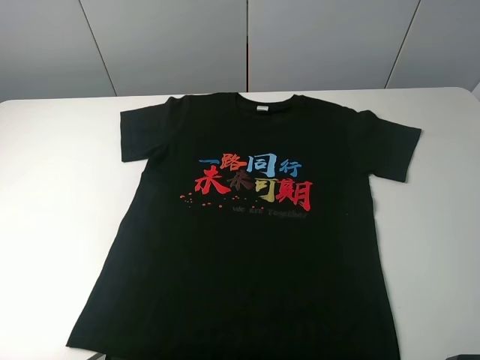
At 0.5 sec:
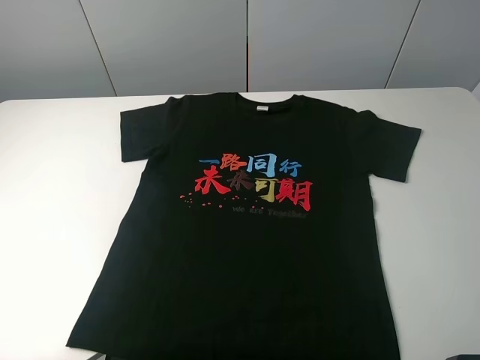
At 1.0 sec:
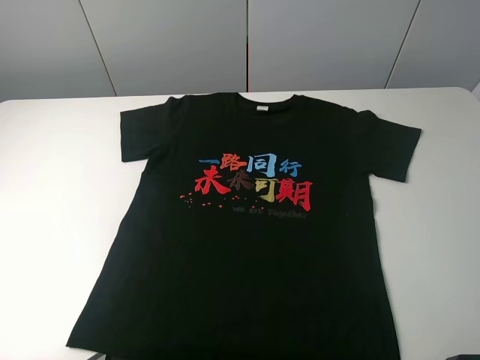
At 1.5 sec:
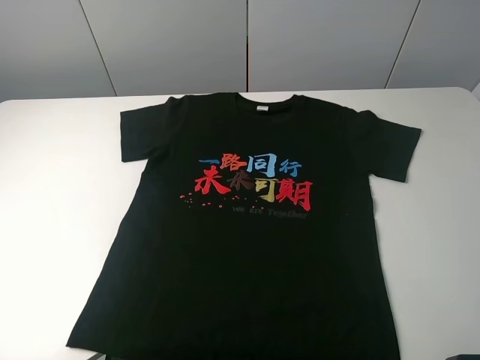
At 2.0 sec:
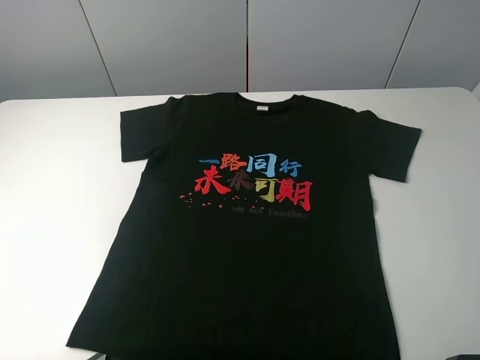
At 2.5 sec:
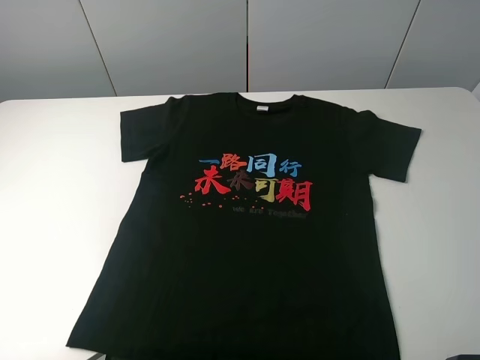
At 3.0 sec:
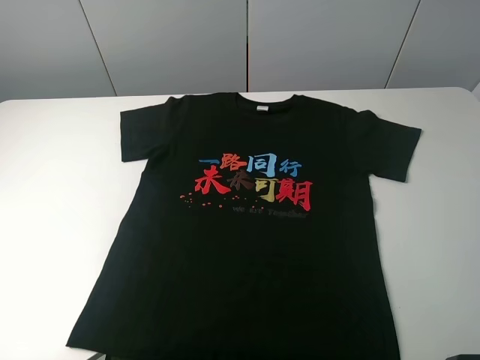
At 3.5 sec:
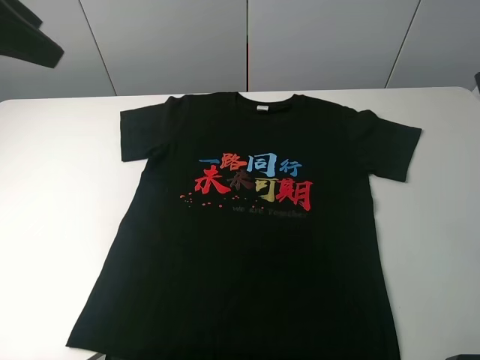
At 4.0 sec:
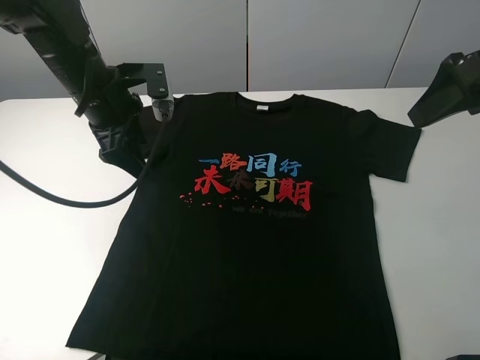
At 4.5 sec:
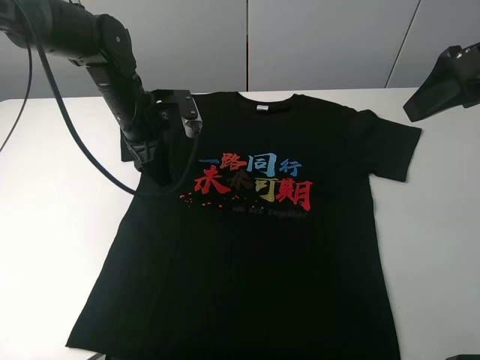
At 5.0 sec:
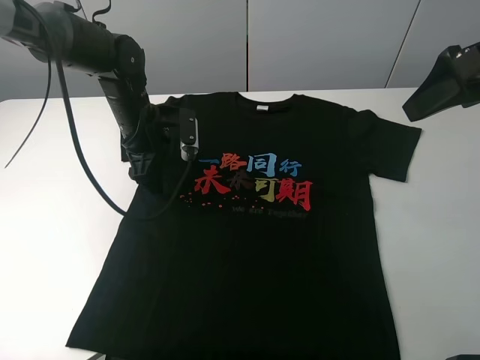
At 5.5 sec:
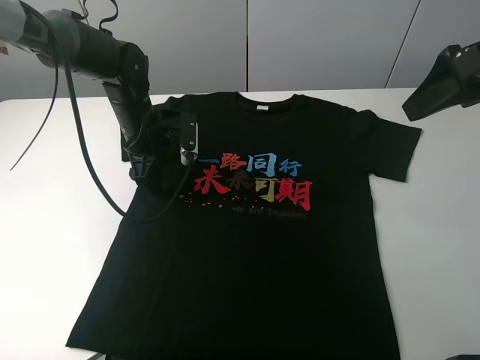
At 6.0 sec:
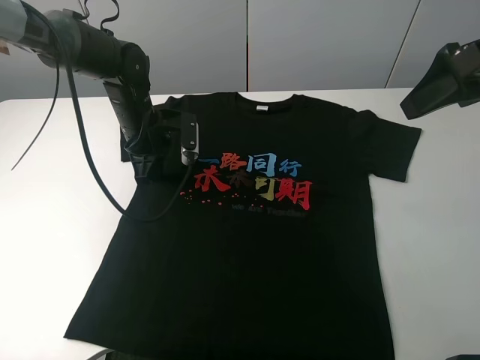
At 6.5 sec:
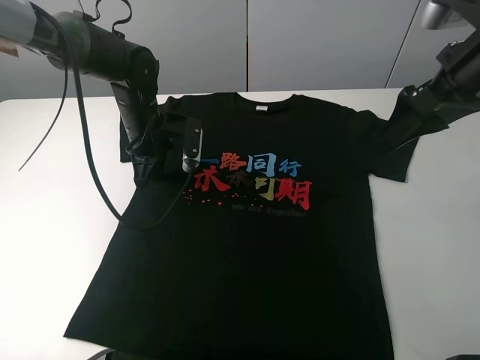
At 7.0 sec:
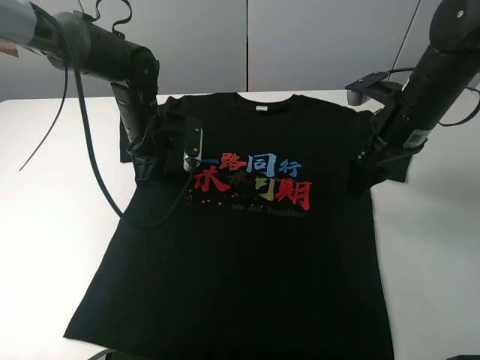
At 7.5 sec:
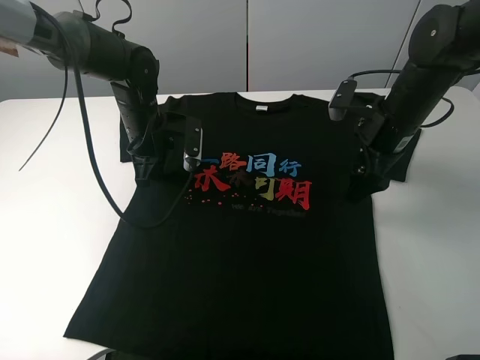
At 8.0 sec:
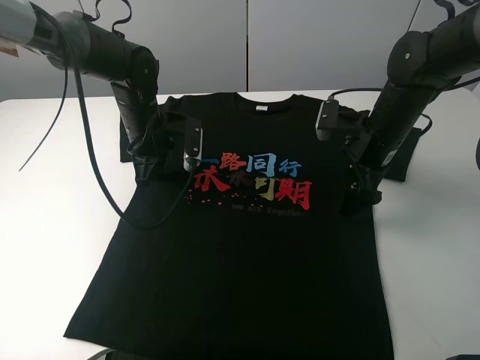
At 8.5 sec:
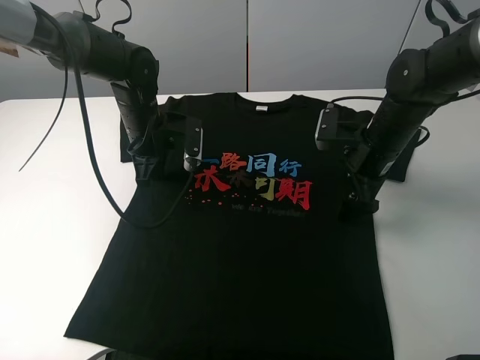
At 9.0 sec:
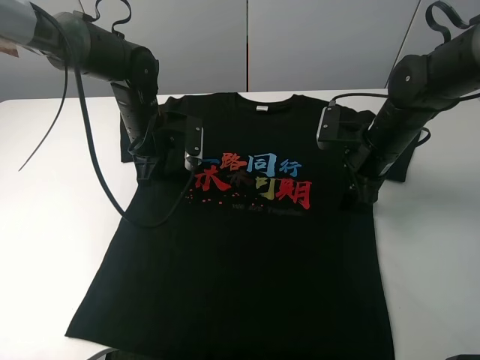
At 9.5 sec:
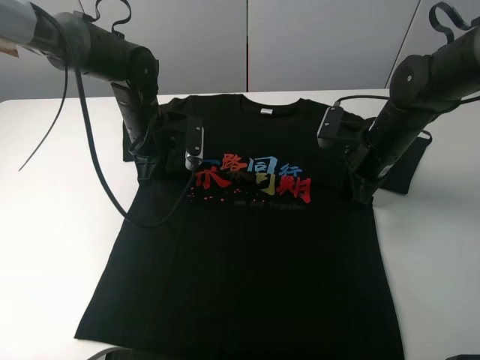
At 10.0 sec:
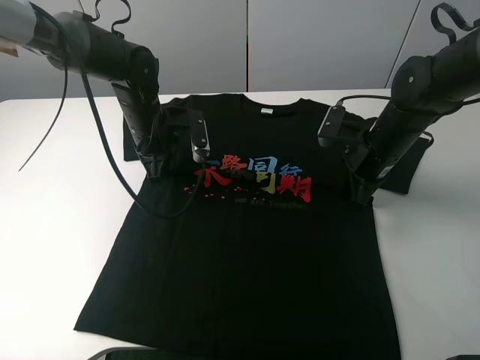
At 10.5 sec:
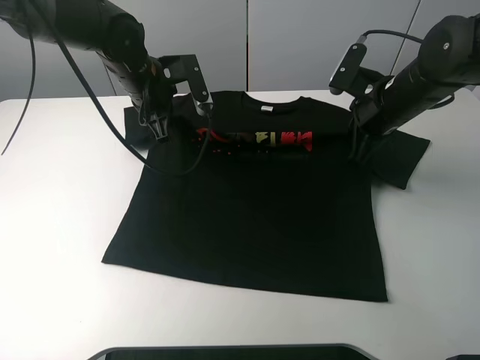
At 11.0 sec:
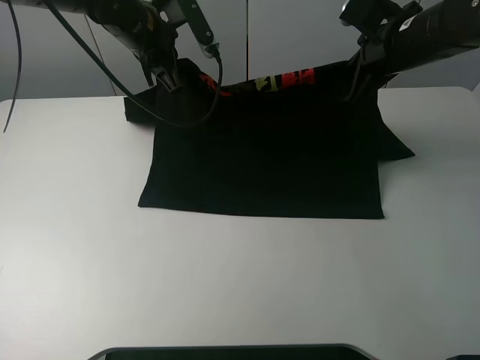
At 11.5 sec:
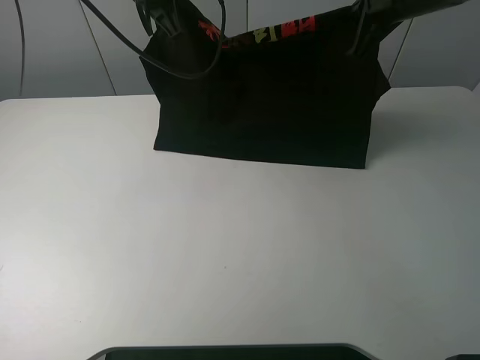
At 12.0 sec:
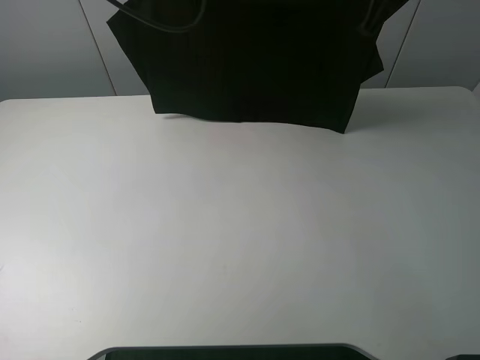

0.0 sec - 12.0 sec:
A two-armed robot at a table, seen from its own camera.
Task of the whole recording: fold the clothes on the table.
Step, 0.0 sec - 9.0 sec: Lift the black T-shirt with the left gripper.
2.0 sec - 4.0 sec: The left gripper heads forward and to the right, covering some 35 cm. The right gripper goes some 25 cm forward.
4.0 sec - 6.0 sec: The left gripper shifts roughly 10 cm downward, and closes its fingers.
6.0 sec - 8.0 sec: The right gripper moves downward and forward, roughly 20 cm.
8.0 sec - 10.0 sec: The right gripper closes.
10.0 sec - 12.0 sec: The right gripper heads upward and forward, covering about 20 cm. The left gripper heads upward, covering about 25 cm.

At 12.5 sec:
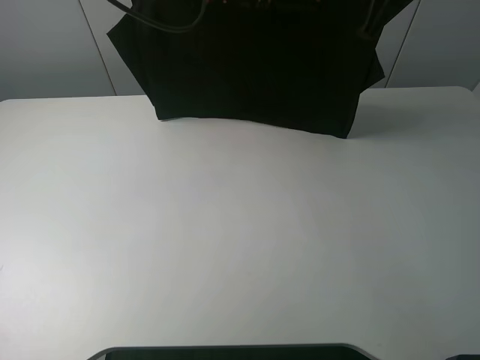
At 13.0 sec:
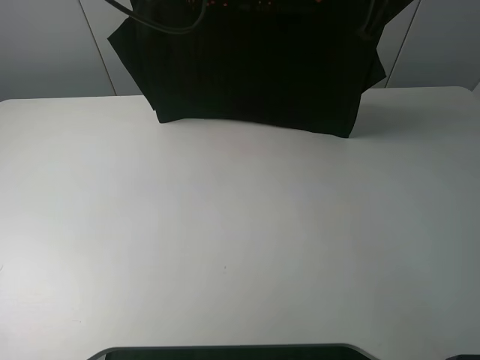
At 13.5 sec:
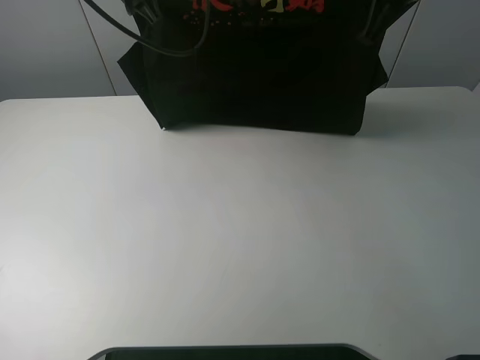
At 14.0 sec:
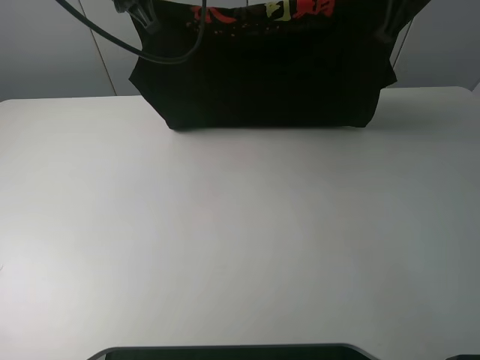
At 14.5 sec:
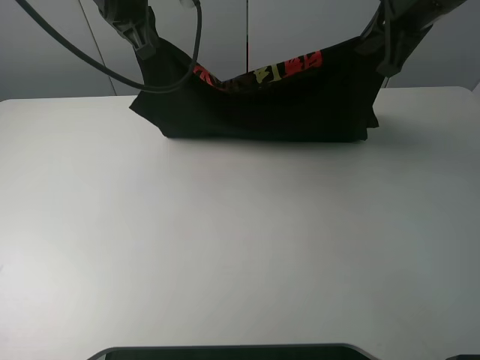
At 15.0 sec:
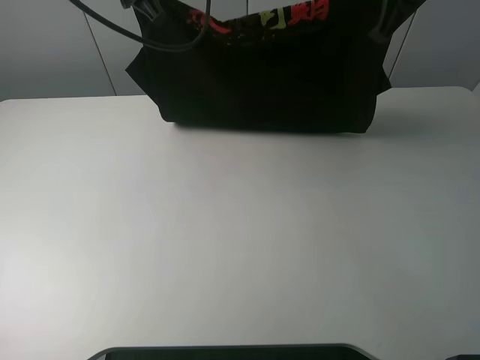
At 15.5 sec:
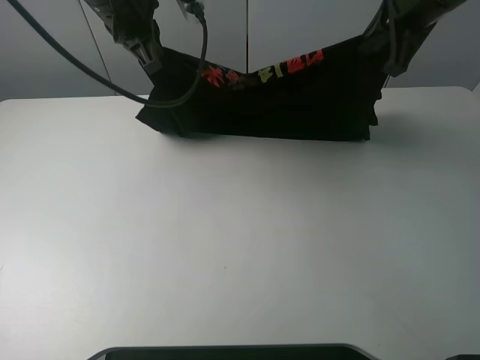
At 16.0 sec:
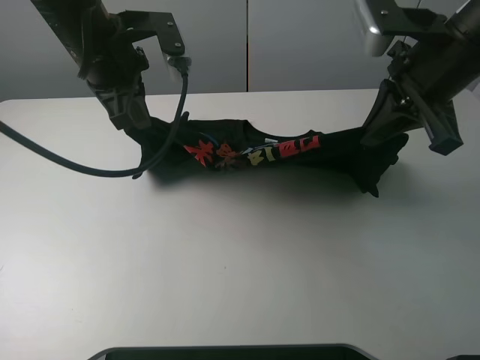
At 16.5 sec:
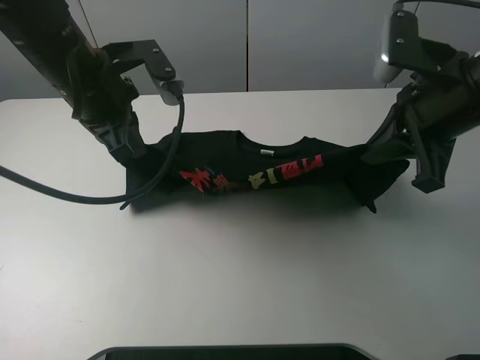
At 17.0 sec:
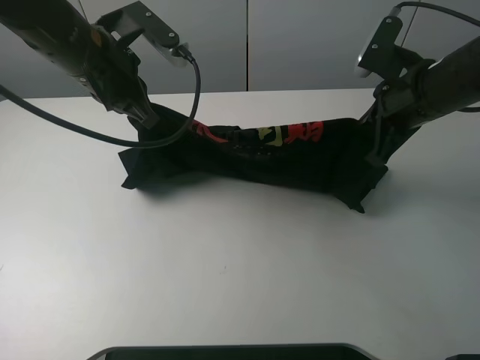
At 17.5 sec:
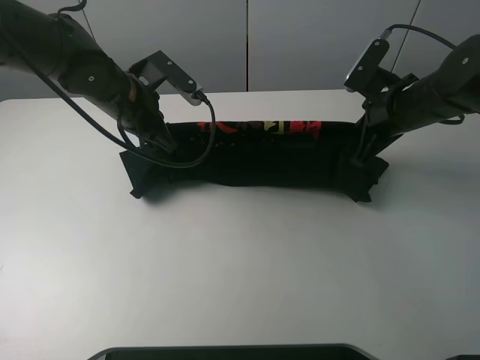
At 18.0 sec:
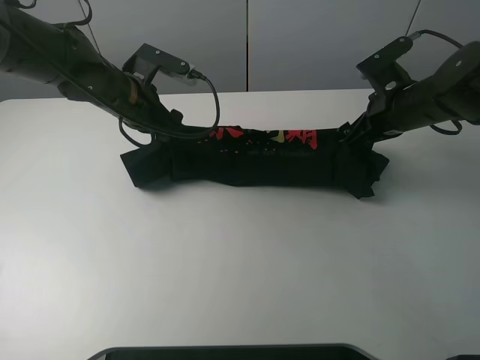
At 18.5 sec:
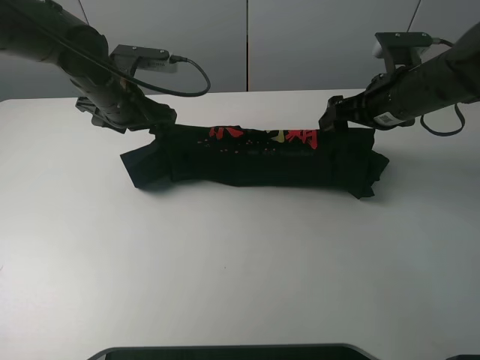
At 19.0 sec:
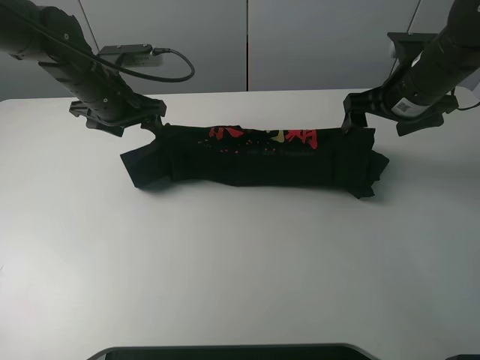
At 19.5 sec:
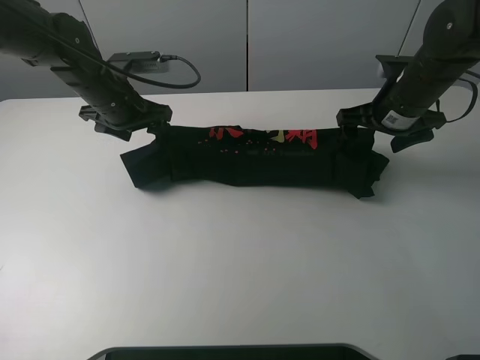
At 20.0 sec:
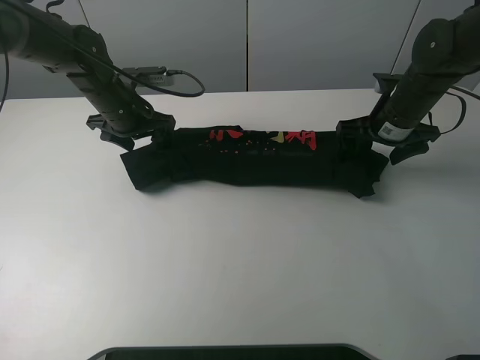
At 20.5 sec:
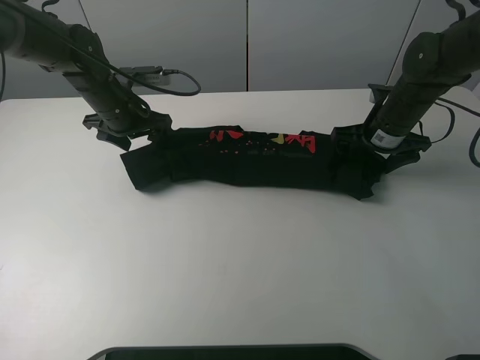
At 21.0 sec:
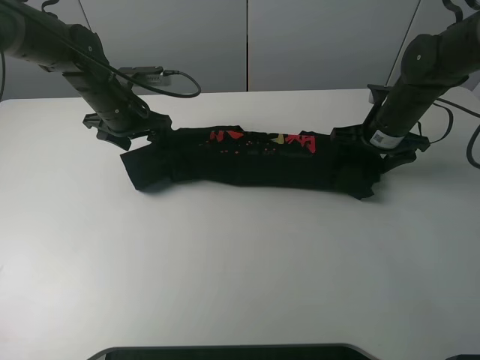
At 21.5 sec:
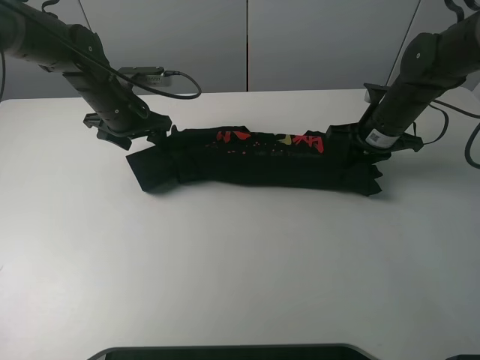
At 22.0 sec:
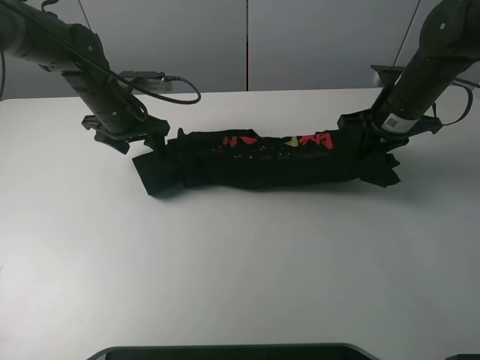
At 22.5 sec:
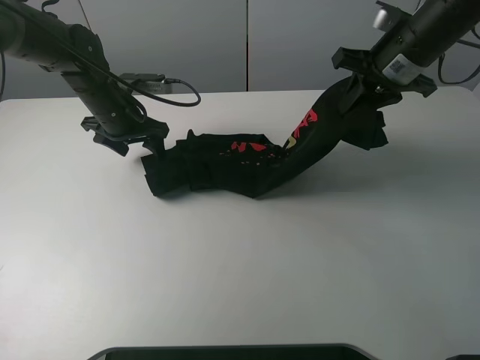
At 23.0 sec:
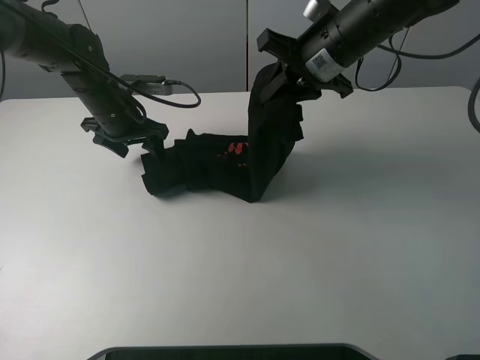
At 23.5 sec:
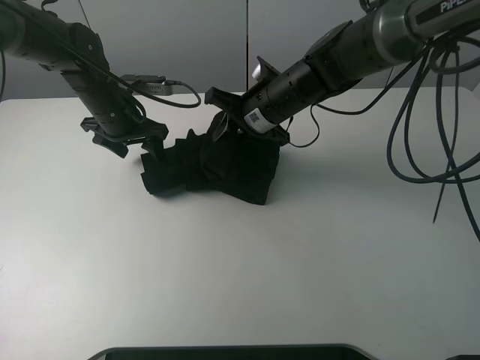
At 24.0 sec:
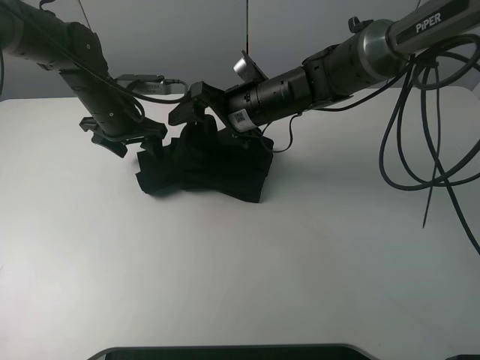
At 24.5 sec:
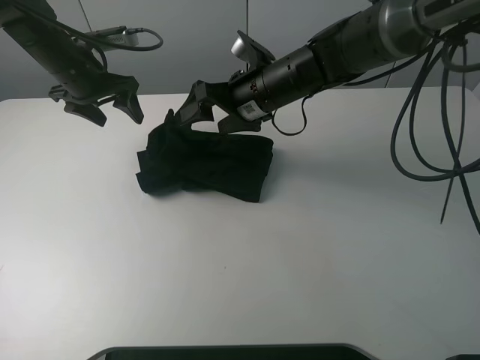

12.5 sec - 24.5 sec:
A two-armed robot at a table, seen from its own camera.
Task of the whole recording: fold the clothes on the table.
Step, 12.5 sec - 18.0 sec: Fold the black T-shirt downward with the left gripper.
Step, 18.5 sec - 21.5 sec: Grasp the black T-shirt with the right gripper.
Step, 22.0 sec - 24.5 sec: Fold the black T-shirt from right to left with right gripper.
12.5 sec - 14.5 sec: The left gripper ends up roughly 5 cm from where it was.
14.5 sec - 16.5 sec: The right gripper moves backward, about 10 cm. The left gripper shifts roughly 10 cm backward and downward.
16.5 sec - 18.5 sec: The two grippers go approximately 10 cm forward and downward. The left gripper opens up, while the right gripper opens up.
18.5 sec - 20.5 sec: The left gripper moves roughly 5 cm; the right gripper shifts roughly 5 cm downward.
20.5 sec - 22.5 sec: The right gripper goes roughly 10 cm upward, and closes up.
22.5 sec - 24.5 sec: The left gripper travels upward by about 5 cm. Meanwhile the right gripper travels to the left and downward by roughly 15 cm, and opens up.

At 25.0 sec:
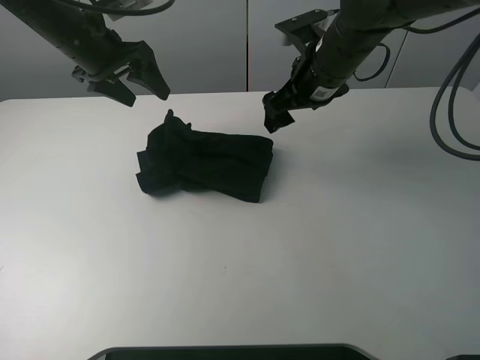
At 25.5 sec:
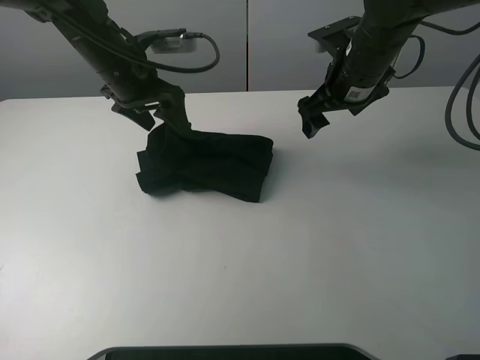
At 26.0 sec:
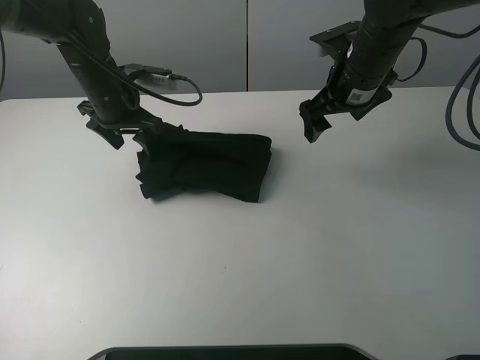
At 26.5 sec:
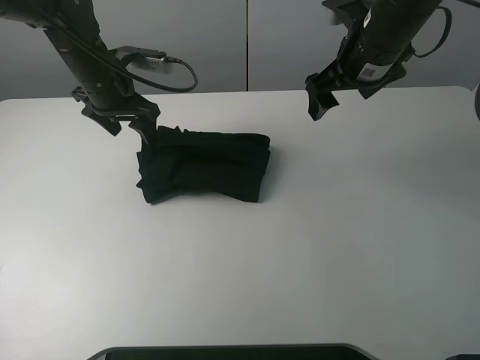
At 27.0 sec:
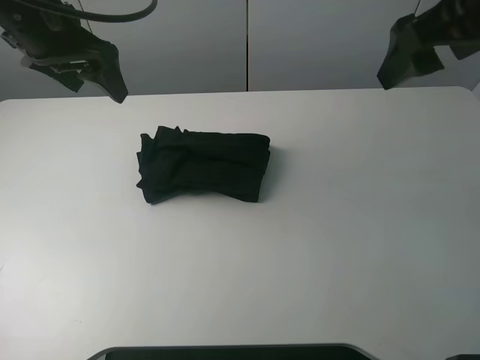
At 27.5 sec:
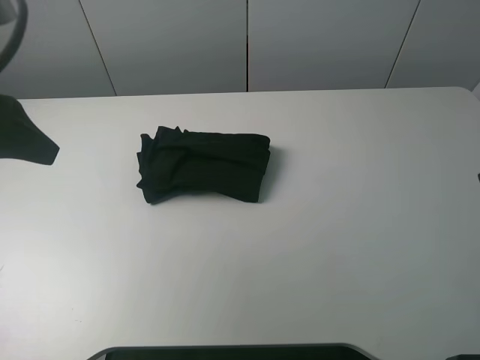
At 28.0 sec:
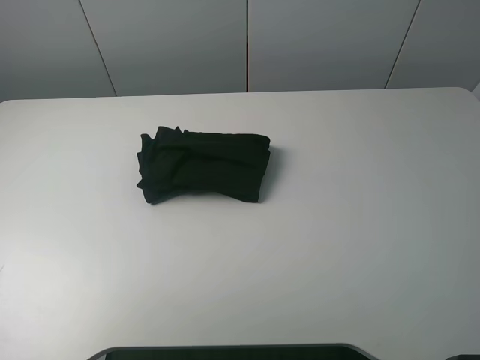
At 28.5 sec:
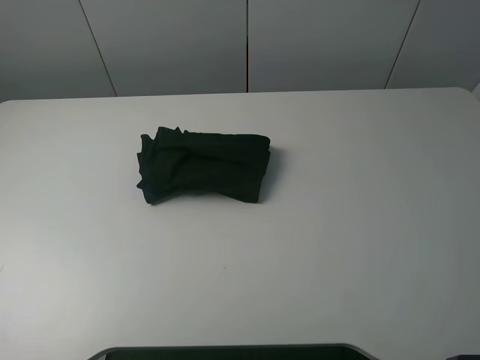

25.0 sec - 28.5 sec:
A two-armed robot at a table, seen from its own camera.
Task of the whole recording: fold the clothes on the table.
Step, 25.0 sec - 26.0 sec: Use the left gripper to tidy up the clothes.
25.0 sec - 27.0 sec: The left gripper shifts roughly 10 cm backward and upward; the right gripper is displaced upward, backward and to the right by approximately 20 cm.
27.0 sec - 28.5 sec: The right gripper goes some 25 cm backward; the left gripper goes roughly 35 cm backward and to the left.
